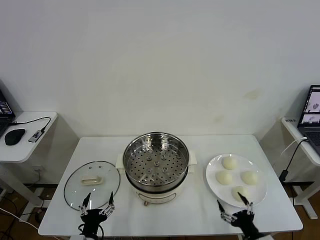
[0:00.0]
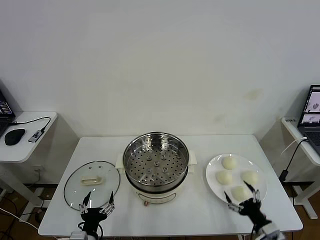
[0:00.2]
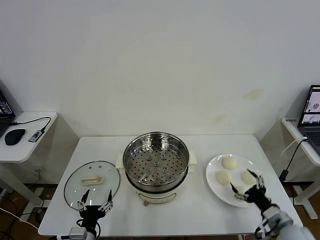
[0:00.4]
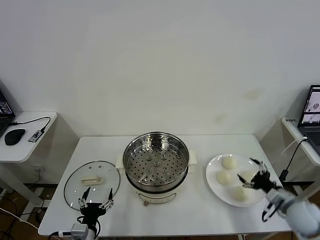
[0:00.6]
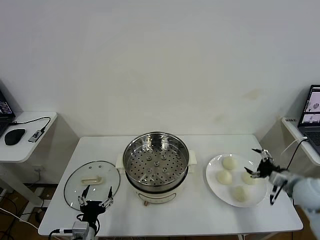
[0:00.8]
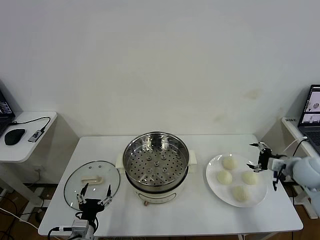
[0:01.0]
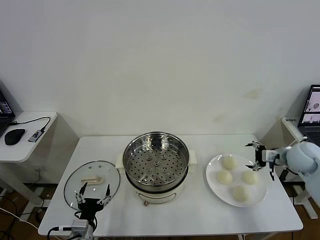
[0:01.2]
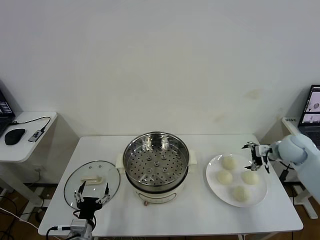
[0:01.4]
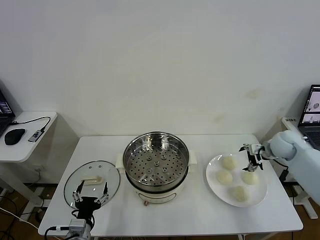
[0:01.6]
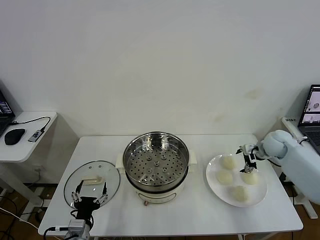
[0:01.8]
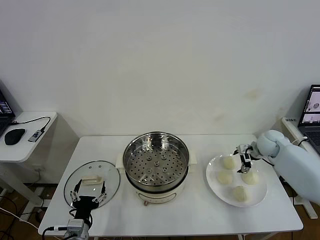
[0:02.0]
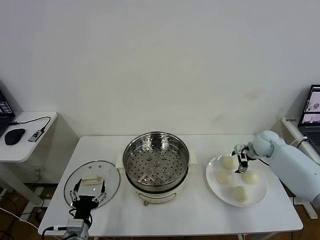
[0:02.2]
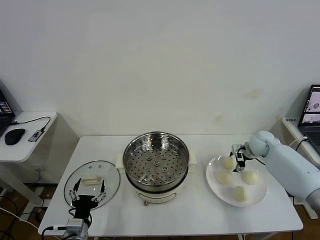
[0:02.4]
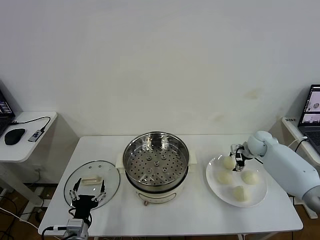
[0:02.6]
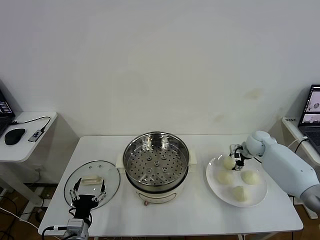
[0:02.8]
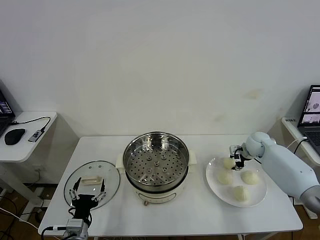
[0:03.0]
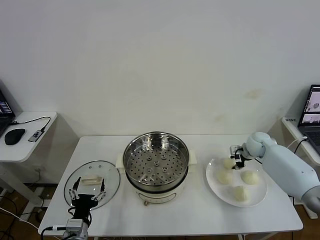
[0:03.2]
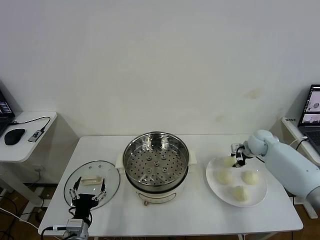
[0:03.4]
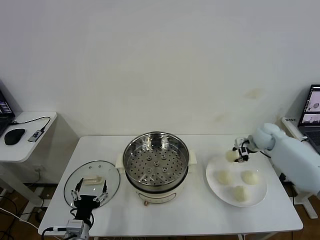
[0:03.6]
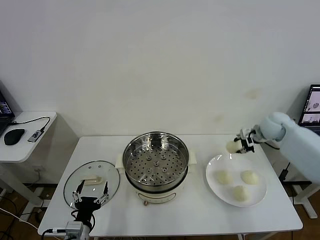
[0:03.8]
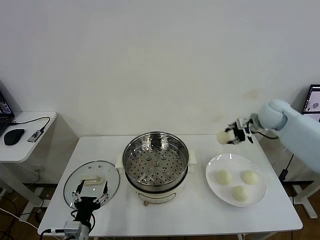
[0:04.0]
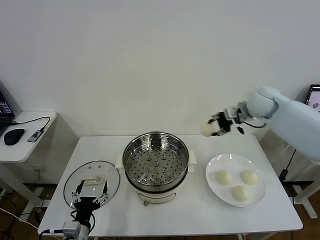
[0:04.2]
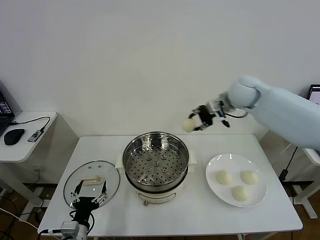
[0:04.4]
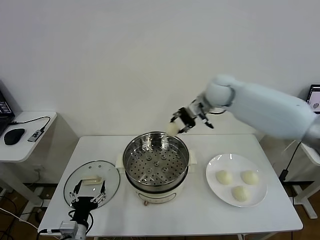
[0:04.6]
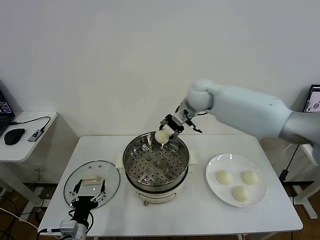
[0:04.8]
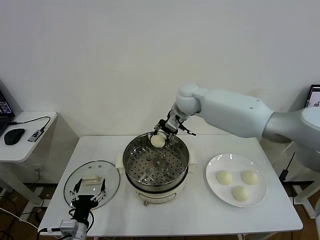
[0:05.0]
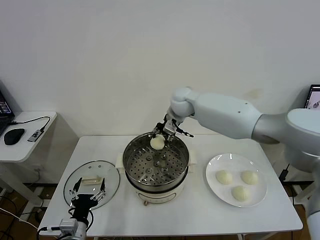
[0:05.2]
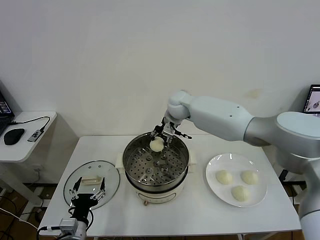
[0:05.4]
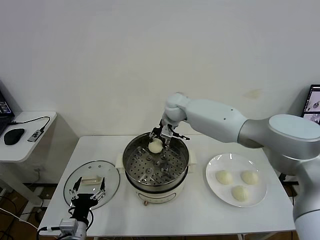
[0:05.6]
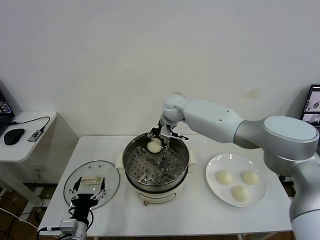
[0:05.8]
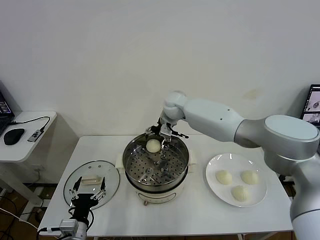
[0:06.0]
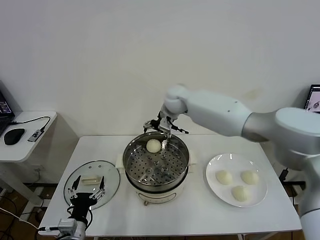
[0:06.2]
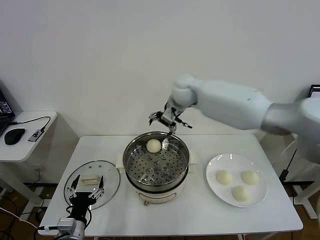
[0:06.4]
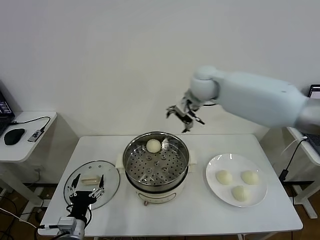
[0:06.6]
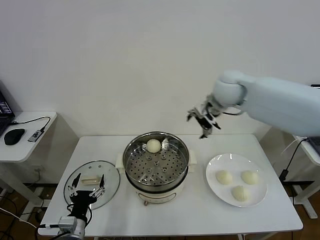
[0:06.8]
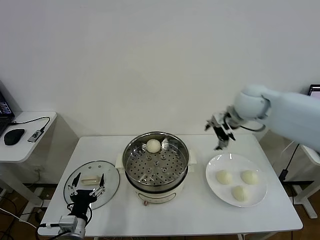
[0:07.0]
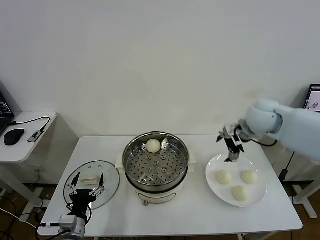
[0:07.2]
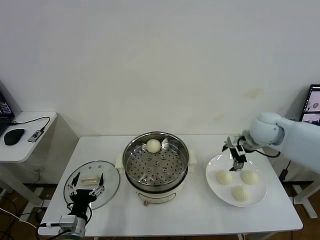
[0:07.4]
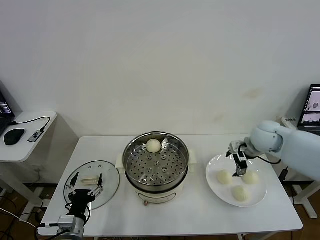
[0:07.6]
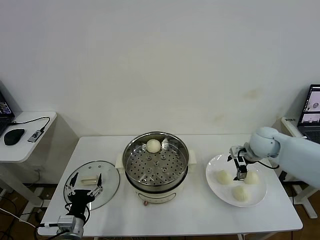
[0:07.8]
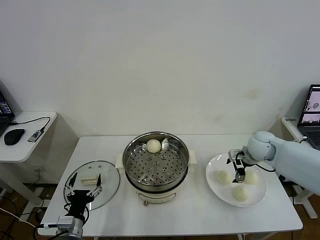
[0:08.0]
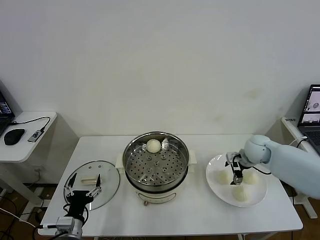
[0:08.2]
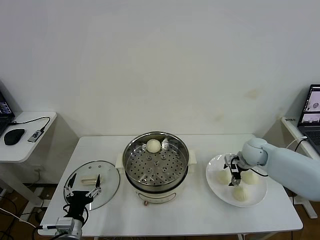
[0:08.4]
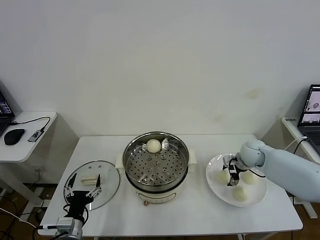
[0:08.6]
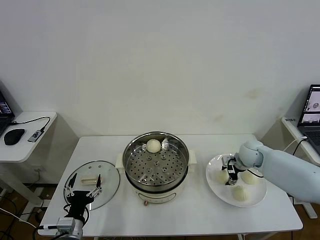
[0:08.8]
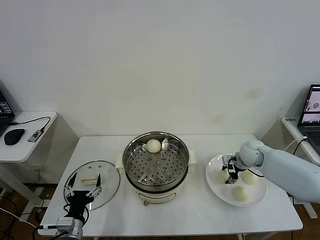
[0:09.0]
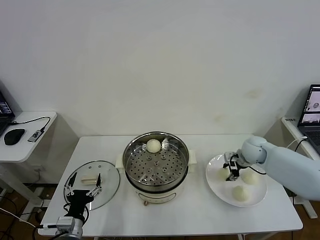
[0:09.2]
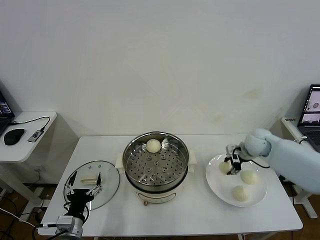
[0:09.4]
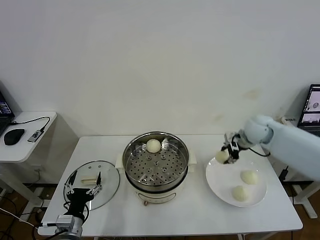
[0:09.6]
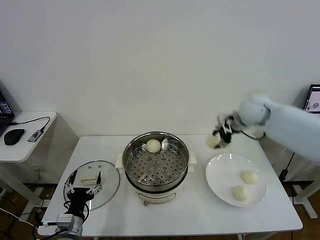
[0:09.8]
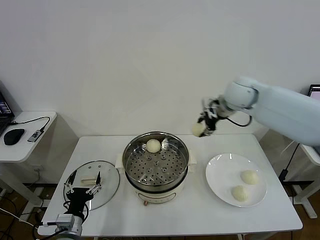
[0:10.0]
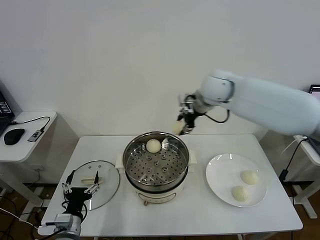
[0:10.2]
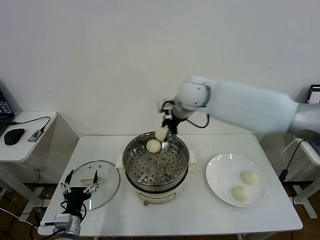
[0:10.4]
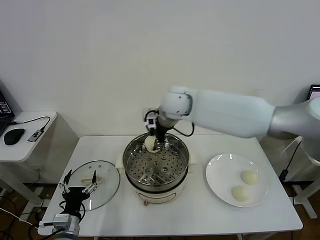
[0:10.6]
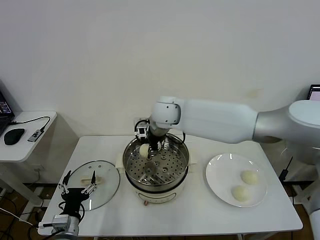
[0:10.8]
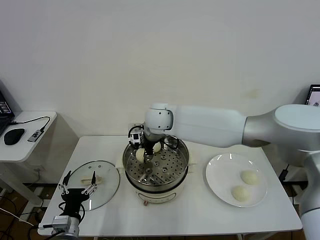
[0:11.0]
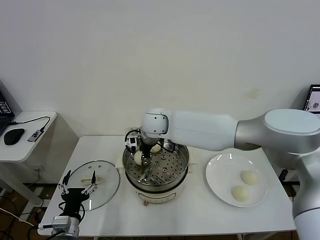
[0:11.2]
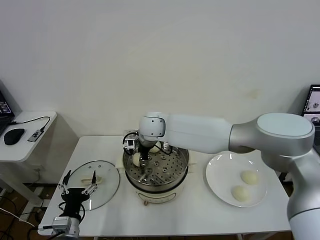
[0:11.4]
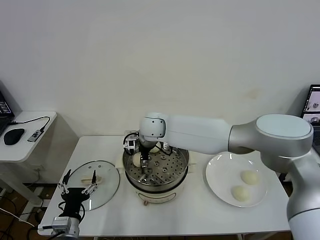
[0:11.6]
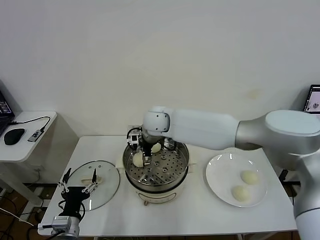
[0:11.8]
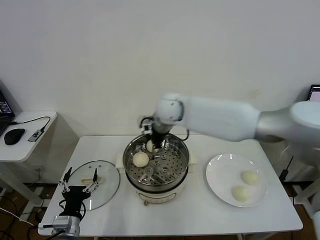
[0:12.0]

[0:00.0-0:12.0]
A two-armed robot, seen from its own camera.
Task of the whole recording: take steamed baozi put them in steamer then cover it.
Step, 0.0 to 3.2 s: Grasp the baozi in the plate with right gripper.
Step, 3.4 to 6.0 s: Place the baozi on the steamer with right gripper.
Step, 6.2 to 9.2 s: Grasp the baozi in the plate with right gripper.
Step, 9.4 to 11.8 s: Place the baozi on the steamer with right gripper.
1.6 to 3.0 s: The right gripper is displaced downward by about 5 cm, and closes.
3.0 to 4.4 s: The right gripper moves upward and to the left, about 30 cm.
4.4 to 6.0 s: The right gripper goes some 15 cm to the left and downward, and opens up.
6.0 to 7.6 s: The right gripper goes approximately 30 cm to the right and backward.
7.6 to 9.0 s: The right gripper is displaced downward by about 10 cm, and closes up.
9.0 to 10.4 s: The right gripper shifts about 35 cm to the left and upward.
10.4 to 12.0 s: The right gripper reaches about 10 cm downward, then returns, and opens its fingers.

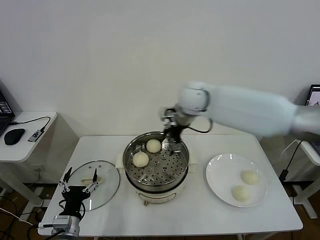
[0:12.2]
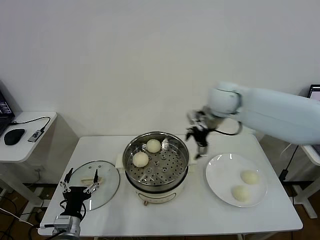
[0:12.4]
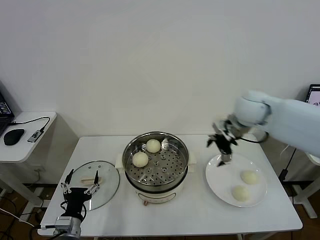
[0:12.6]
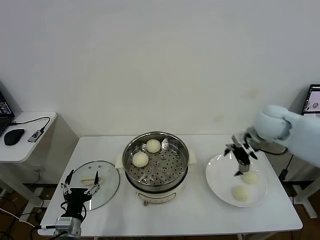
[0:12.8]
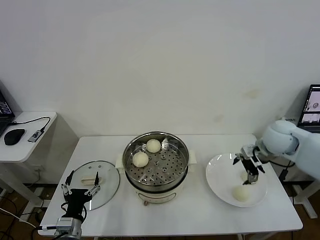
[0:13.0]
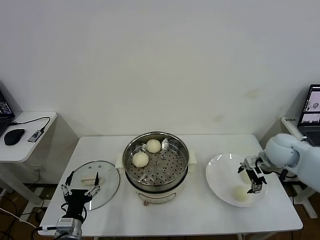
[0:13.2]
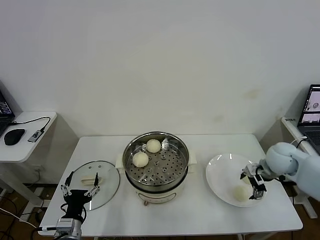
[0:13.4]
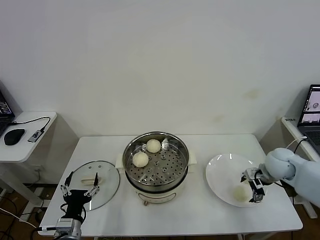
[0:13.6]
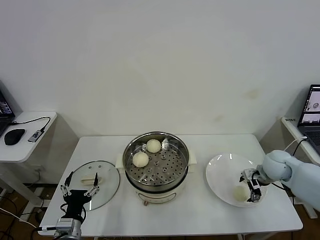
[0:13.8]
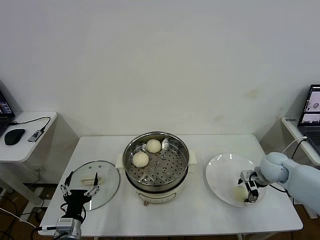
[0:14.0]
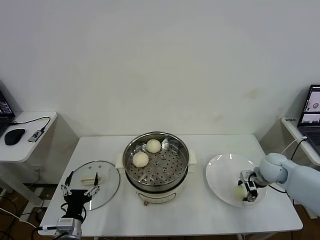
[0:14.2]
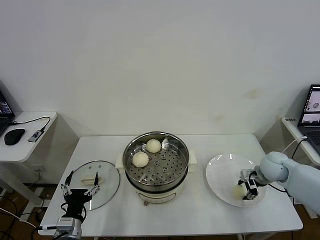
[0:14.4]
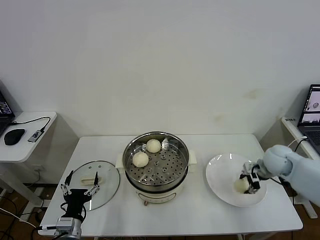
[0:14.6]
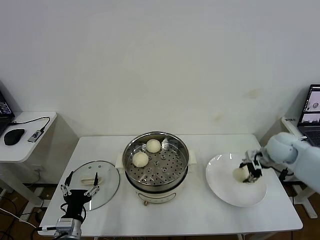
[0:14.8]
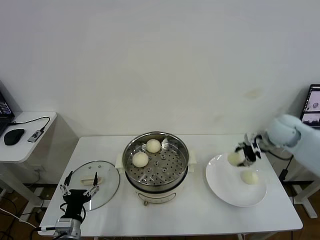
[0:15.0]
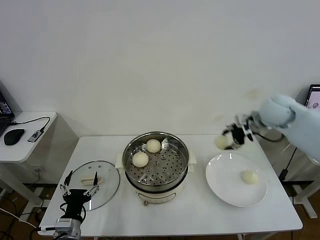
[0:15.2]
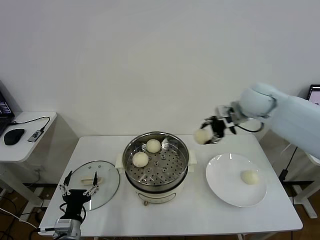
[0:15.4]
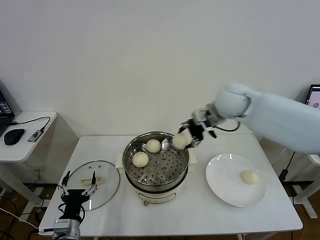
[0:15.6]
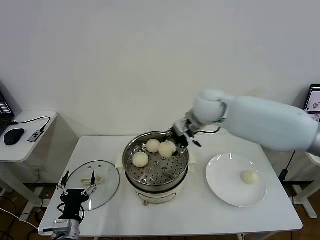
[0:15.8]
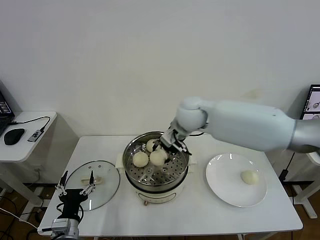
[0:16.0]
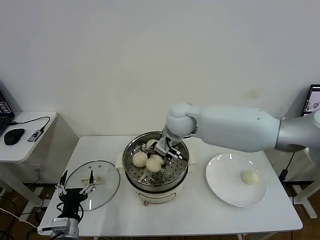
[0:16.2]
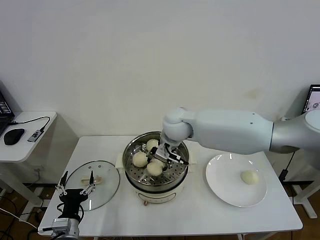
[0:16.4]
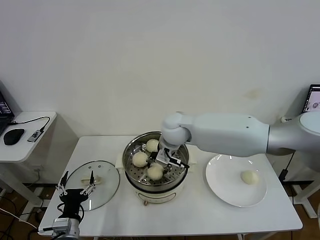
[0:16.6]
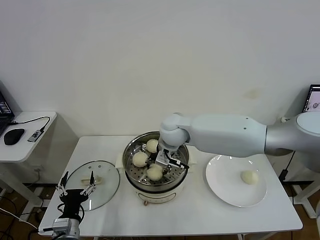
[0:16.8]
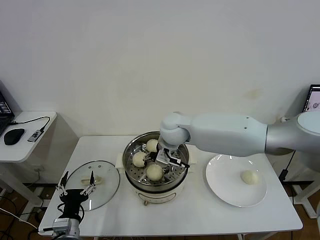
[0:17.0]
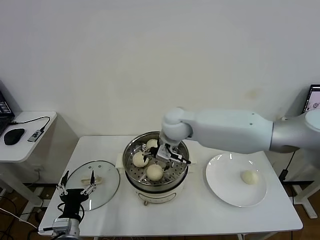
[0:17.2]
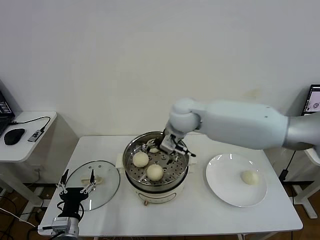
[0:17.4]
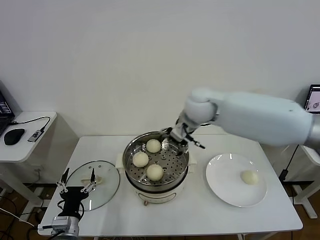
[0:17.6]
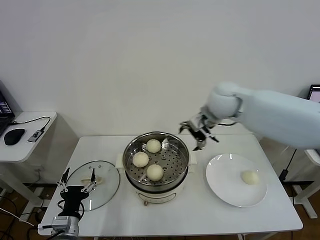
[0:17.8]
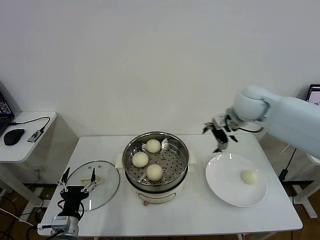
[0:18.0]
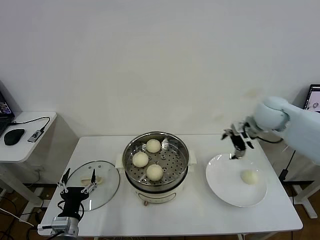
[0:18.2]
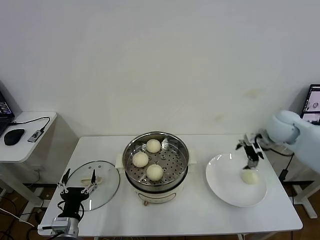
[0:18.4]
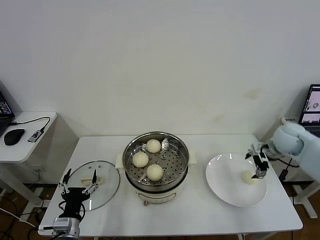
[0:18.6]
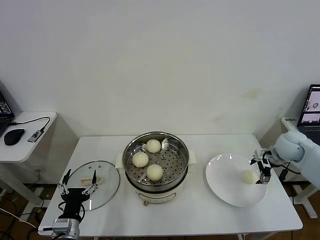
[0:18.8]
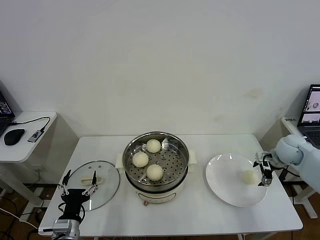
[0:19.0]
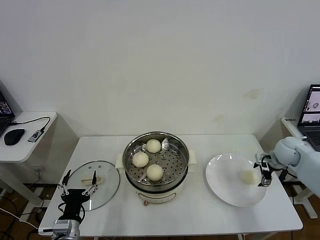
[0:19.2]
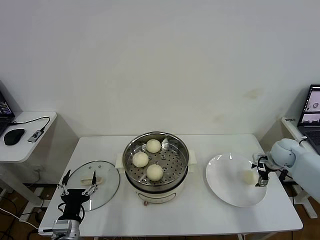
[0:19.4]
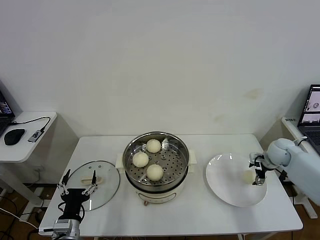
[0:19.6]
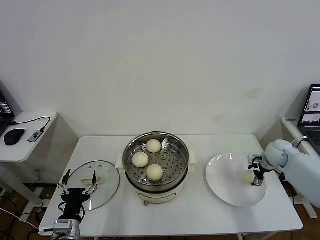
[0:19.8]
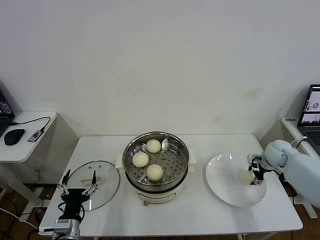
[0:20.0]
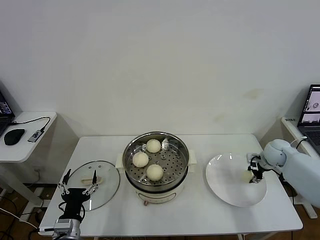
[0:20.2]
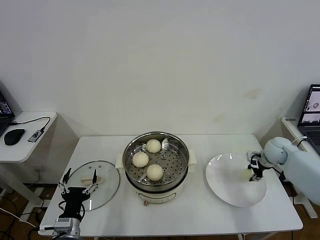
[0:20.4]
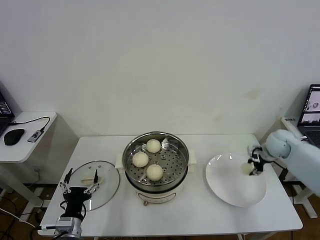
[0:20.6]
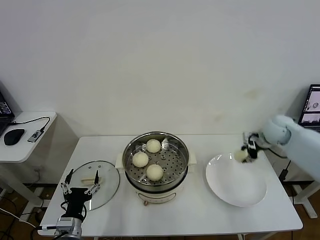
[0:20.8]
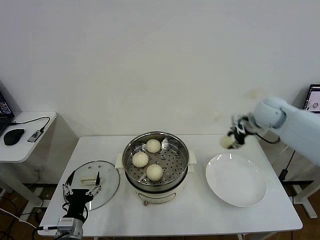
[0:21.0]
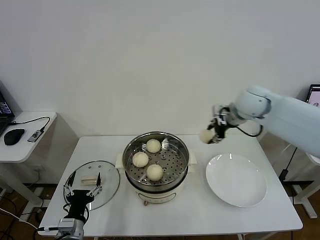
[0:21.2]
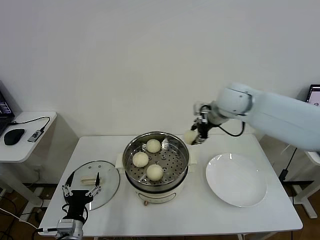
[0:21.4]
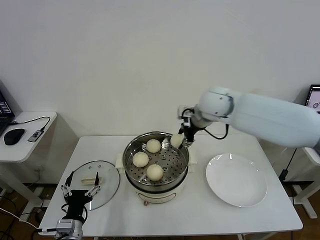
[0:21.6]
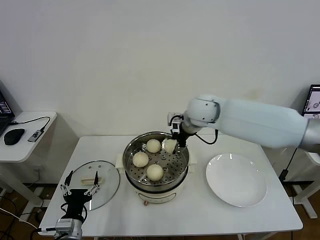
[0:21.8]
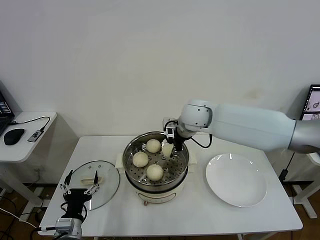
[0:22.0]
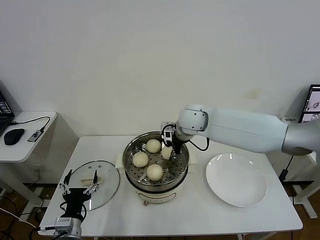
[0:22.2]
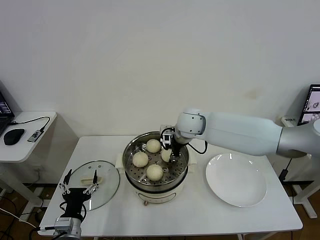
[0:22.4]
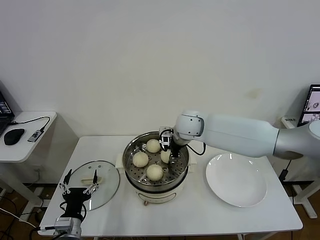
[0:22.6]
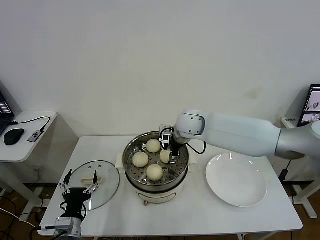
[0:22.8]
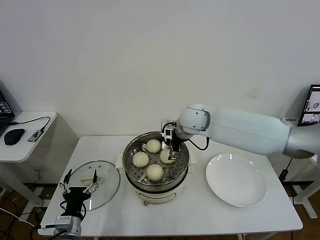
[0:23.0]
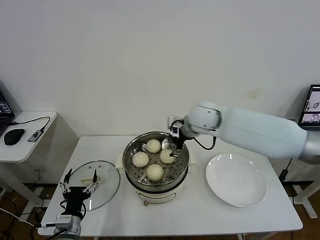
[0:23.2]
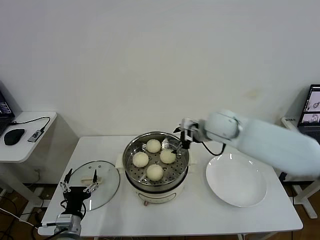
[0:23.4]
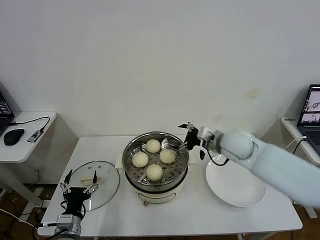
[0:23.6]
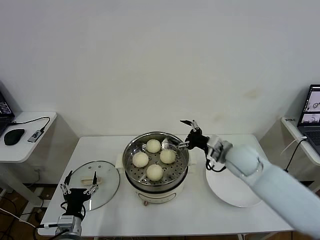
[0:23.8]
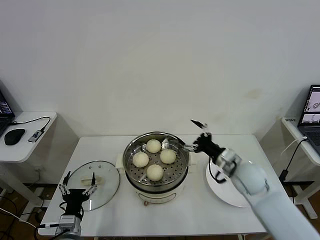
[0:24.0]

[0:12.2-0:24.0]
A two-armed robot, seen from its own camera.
Task of the whole recording: take steamed baozi put them in steamer then cover it.
Step, 12.2 to 14.4 s: Grasp the baozi in the plate with right gripper.
Step, 14.6 to 17.2 s: Place the baozi on the steamer with right gripper.
Step, 17.4 to 20.4 s: Grasp the baozi in the plate with right gripper.
Step, 20.6 to 22.8 s: Place the baozi on the steamer with right gripper.
12.2 to 13.6 s: The right gripper goes roughly 35 cm to the right and downward.
13.6 to 15.2 s: The right gripper shifts some 20 cm upward, forward and to the left, and closes its fingers.
15.2 to 16.6 s: The right gripper heads to the left, covering some 30 cm.
16.6 to 18.2 s: The right gripper shifts about 30 cm to the right, and opens up.
18.2 to 19.6 s: The right gripper is displaced downward and to the right by approximately 20 cm.
19.6 to 21.0 s: The right gripper is displaced upward and to the left by some 20 cm, and closes its fingers.
21.0 to 22.6 s: The right gripper goes roughly 25 cm to the left.
22.6 to 24.0 s: The right gripper travels to the right, backward and downward by roughly 25 cm, and opens.
